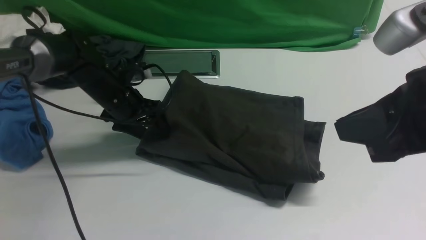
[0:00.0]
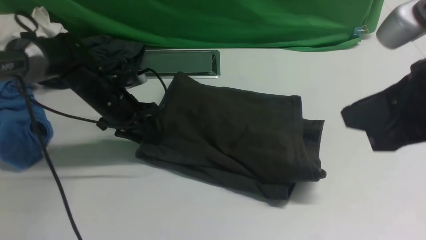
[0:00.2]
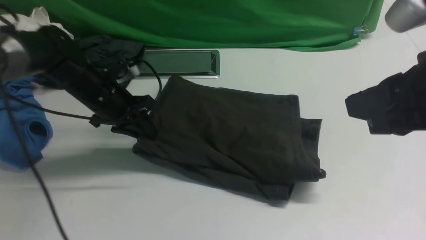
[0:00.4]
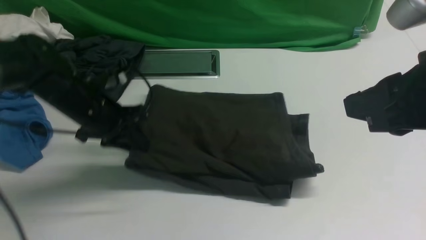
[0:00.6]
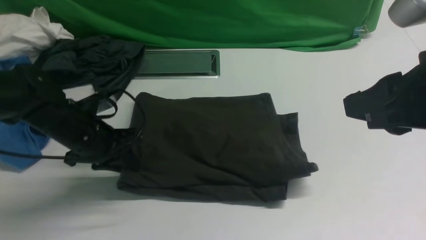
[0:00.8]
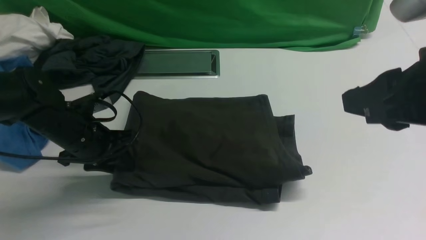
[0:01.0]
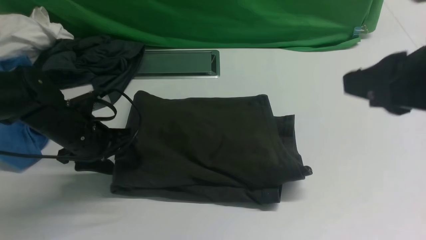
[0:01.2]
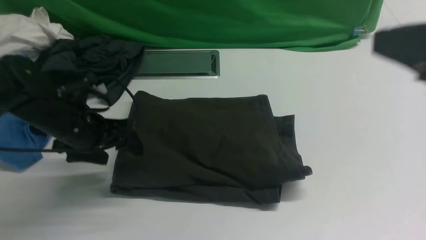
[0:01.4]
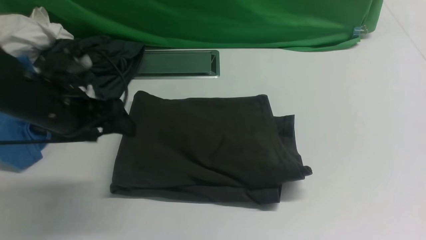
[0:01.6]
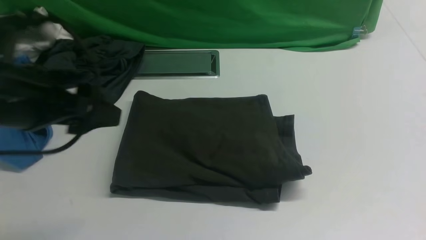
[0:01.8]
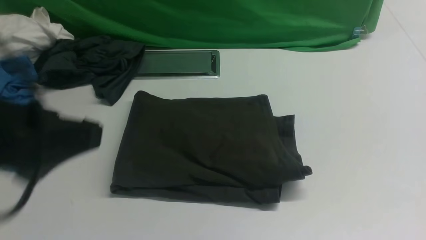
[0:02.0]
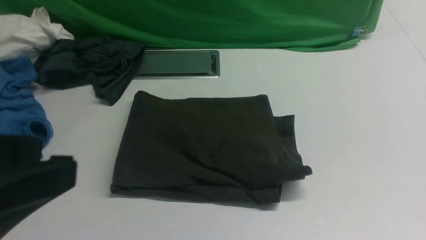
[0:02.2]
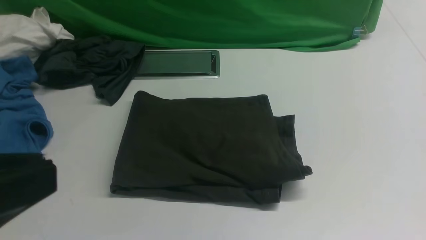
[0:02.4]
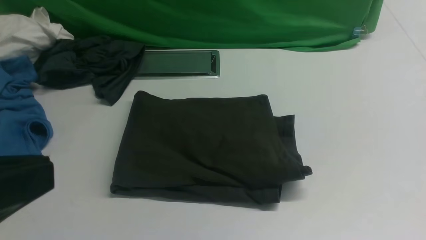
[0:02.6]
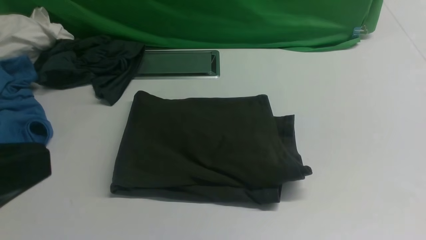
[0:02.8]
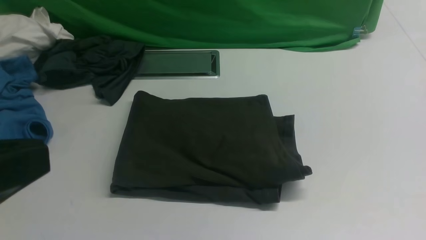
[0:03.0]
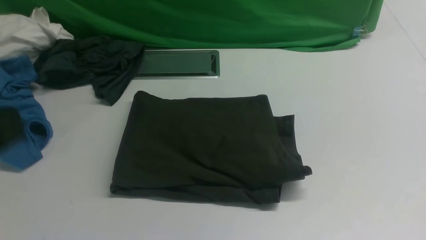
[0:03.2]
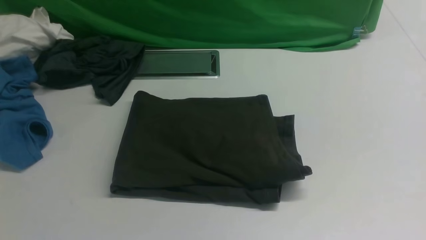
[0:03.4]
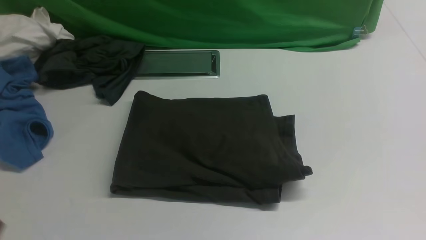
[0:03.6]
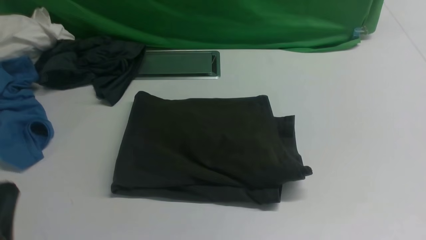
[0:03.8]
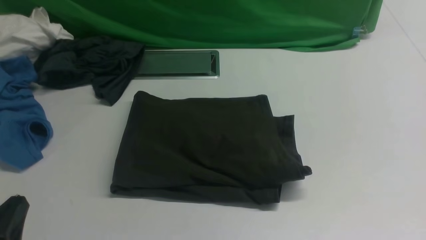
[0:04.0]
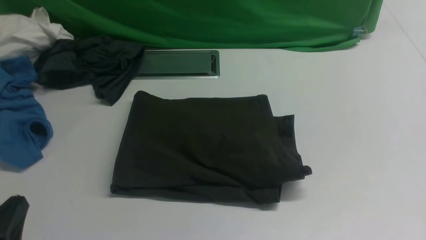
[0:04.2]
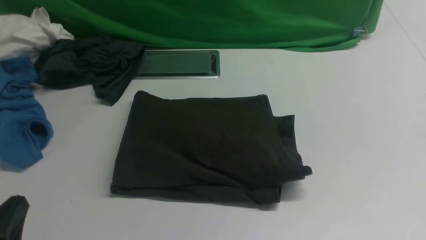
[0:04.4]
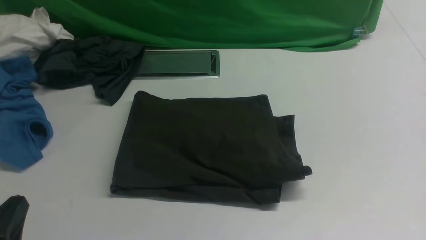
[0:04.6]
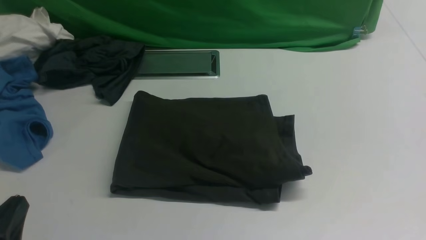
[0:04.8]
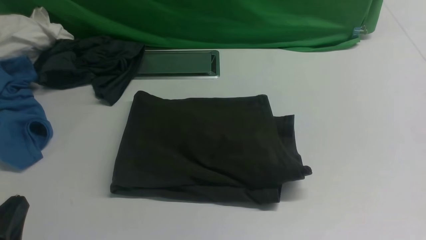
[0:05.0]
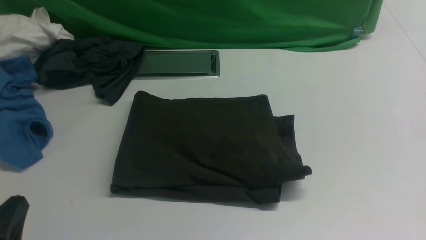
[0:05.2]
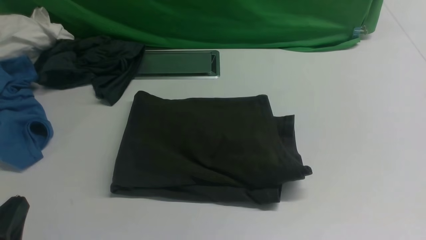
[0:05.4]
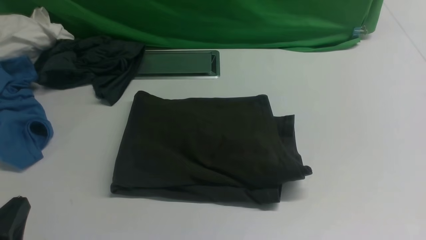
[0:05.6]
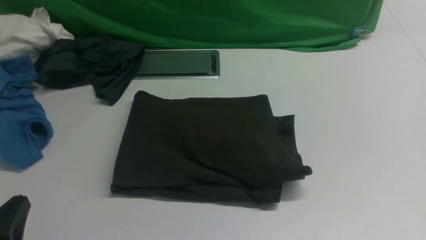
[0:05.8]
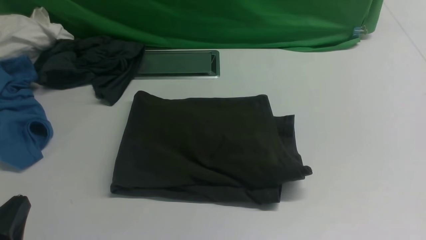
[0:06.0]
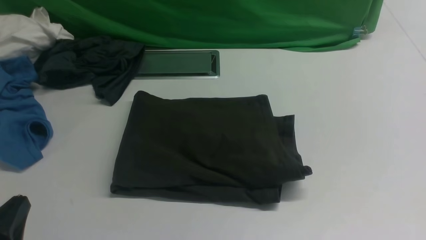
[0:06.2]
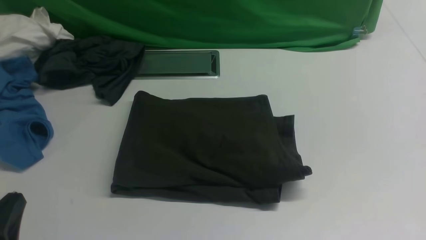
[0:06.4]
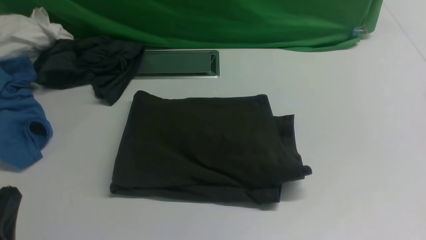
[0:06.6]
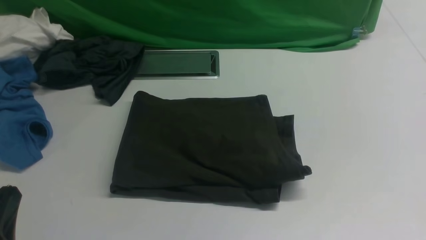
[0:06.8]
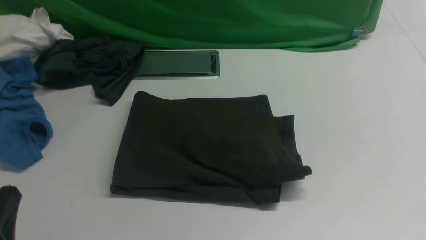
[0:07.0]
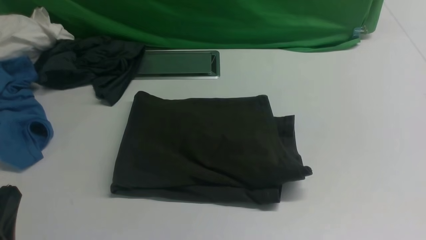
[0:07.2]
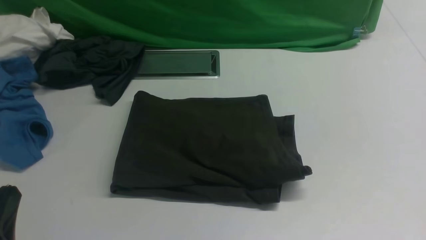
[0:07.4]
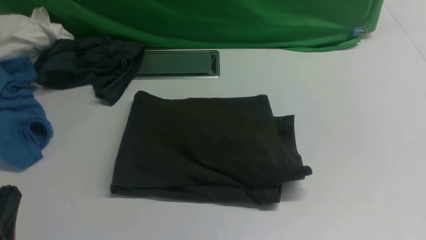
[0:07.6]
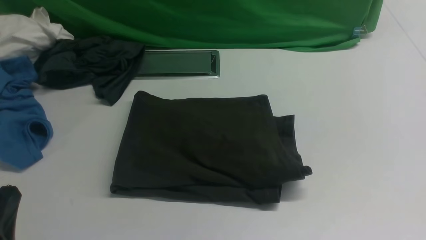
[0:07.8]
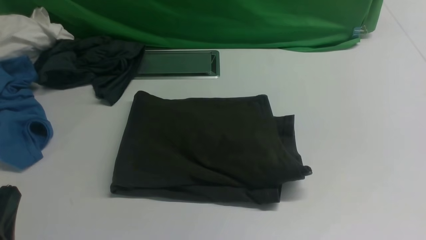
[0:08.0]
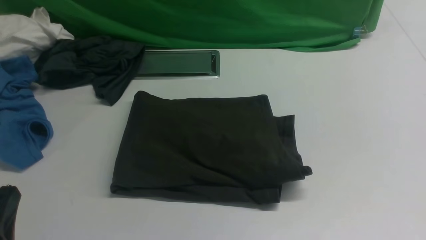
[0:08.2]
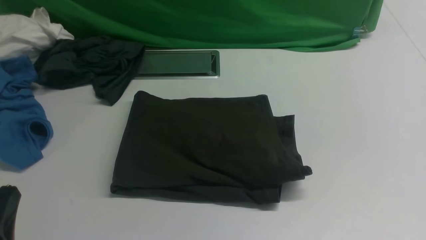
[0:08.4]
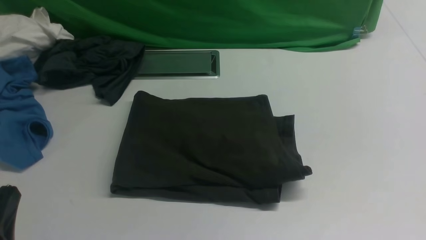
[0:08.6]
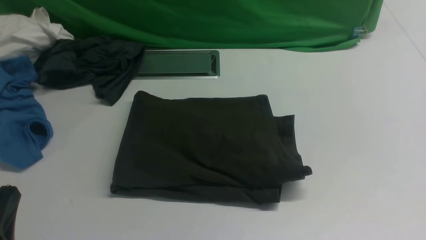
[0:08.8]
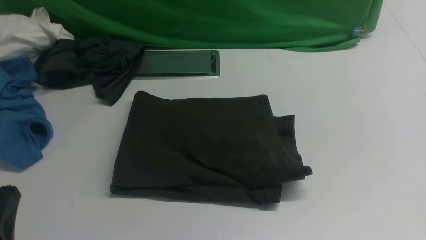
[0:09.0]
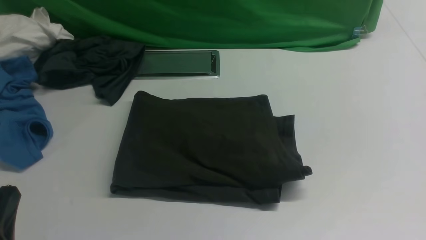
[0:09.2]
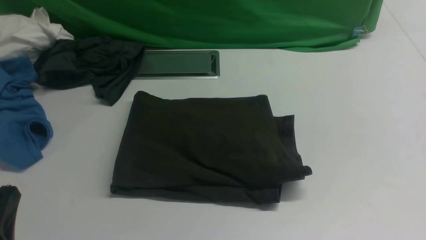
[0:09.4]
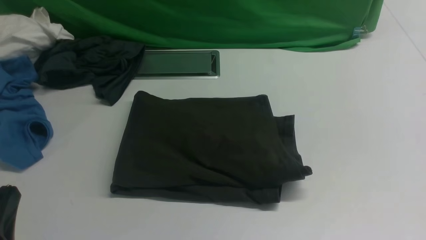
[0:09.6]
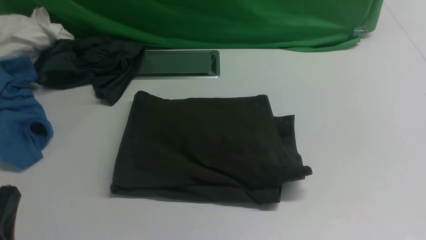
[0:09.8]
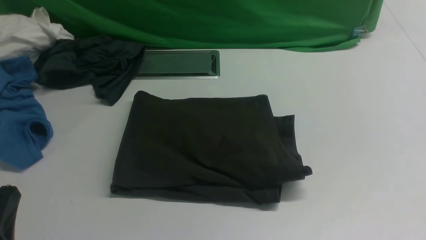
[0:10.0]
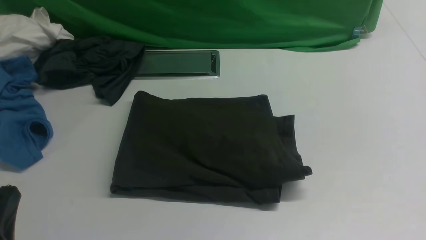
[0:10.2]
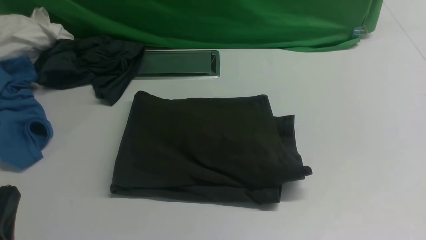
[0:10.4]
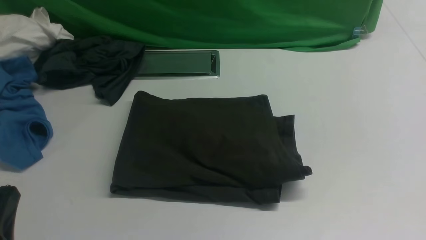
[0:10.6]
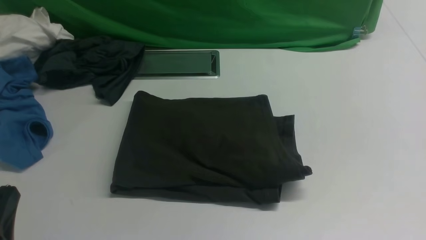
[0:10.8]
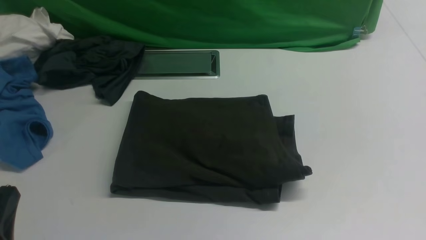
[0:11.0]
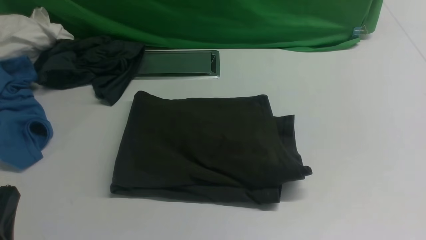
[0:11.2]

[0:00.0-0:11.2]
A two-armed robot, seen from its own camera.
0:00.0 to 0:01.6: The left gripper moves backward and upward, approximately 20 cm, and closes, then opens again, while the right gripper shifts approximately 10 cm backward and to the right.
0:01.6 to 0:03.2: The left gripper heads backward and upward, covering approximately 25 cm, and closes its fingers.
0:03.2 to 0:04.8: The left gripper goes roughly 20 cm downward.
0:09.6 to 0:11.2: Both grippers stay about where they are.

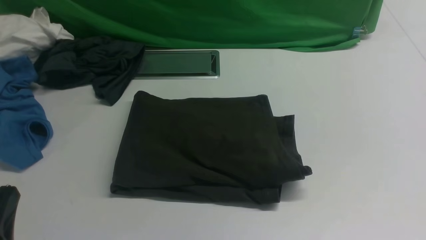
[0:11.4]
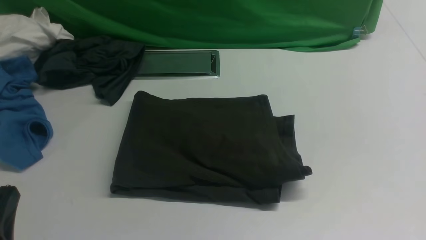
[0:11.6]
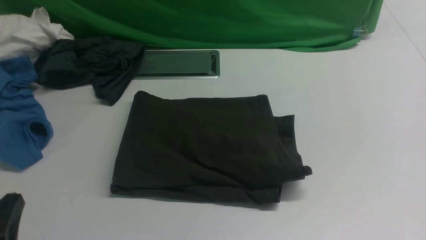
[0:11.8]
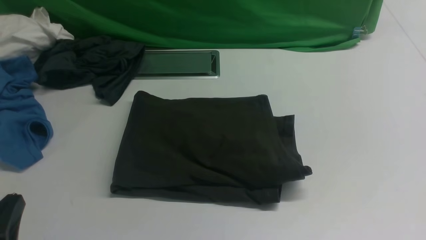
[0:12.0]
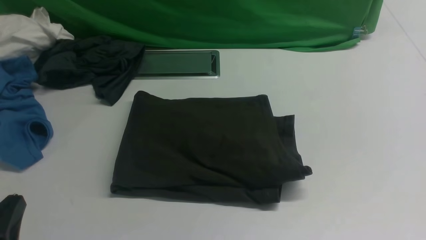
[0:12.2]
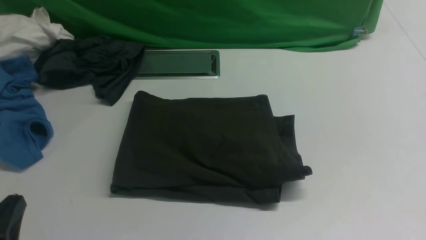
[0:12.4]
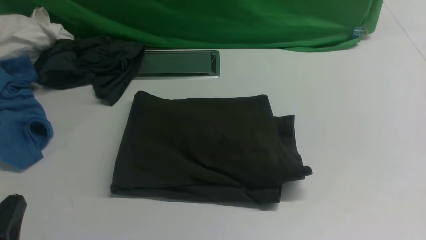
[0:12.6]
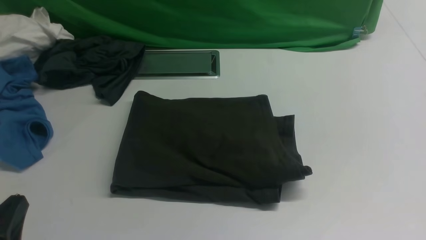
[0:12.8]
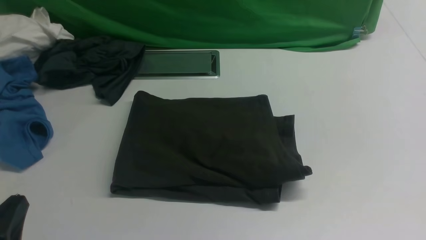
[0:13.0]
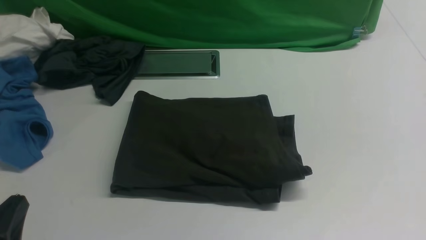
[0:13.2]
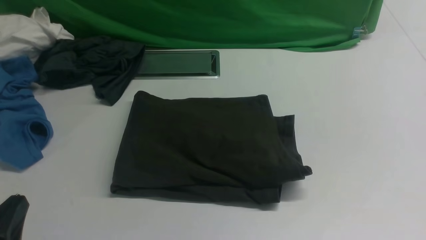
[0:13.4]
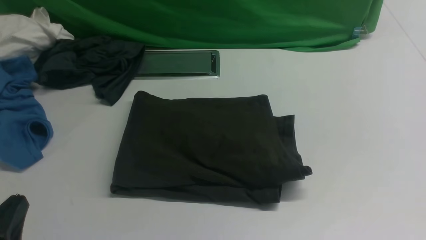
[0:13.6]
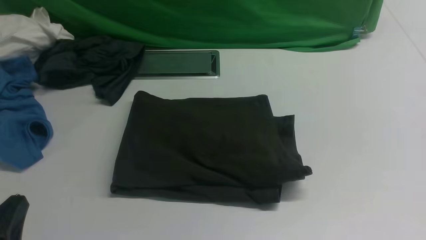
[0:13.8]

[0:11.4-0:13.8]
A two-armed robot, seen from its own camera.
0:12.6 to 0:13.8: Both grippers stay put.
